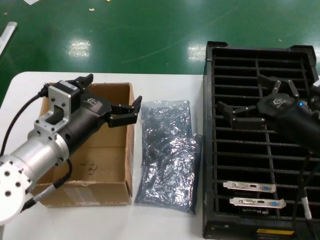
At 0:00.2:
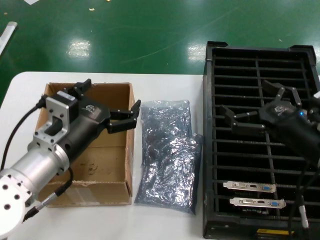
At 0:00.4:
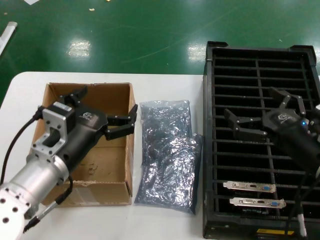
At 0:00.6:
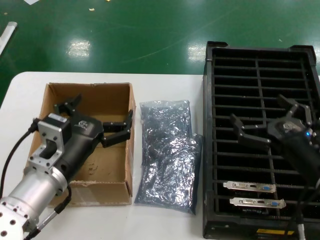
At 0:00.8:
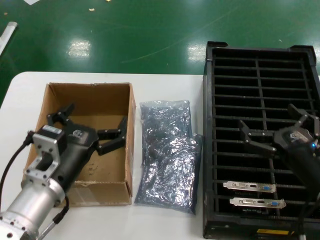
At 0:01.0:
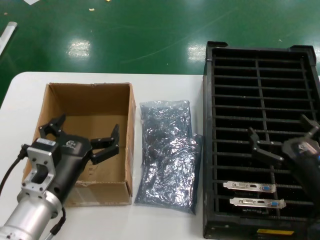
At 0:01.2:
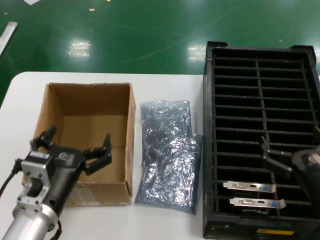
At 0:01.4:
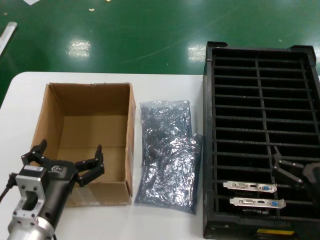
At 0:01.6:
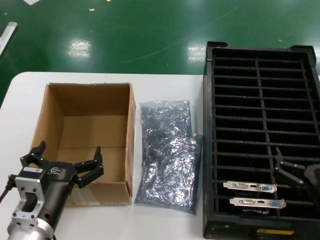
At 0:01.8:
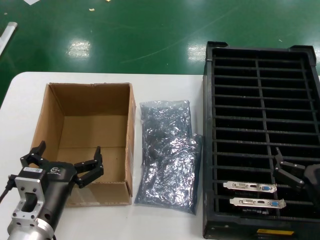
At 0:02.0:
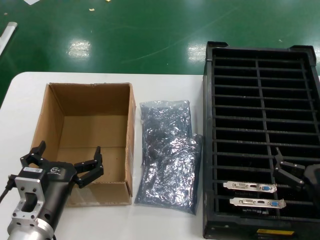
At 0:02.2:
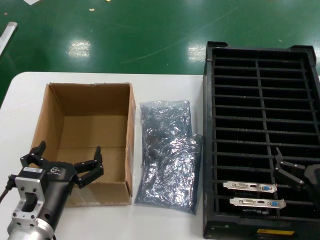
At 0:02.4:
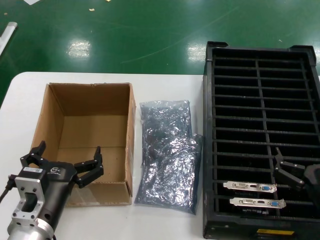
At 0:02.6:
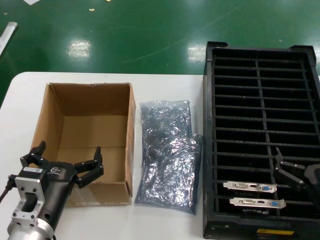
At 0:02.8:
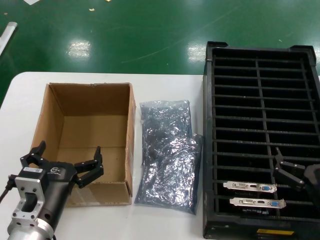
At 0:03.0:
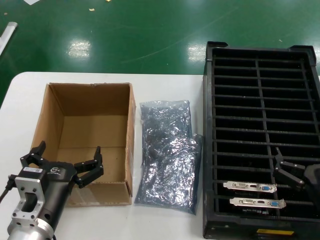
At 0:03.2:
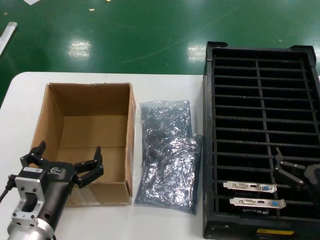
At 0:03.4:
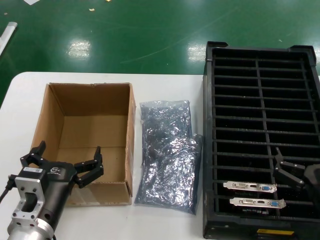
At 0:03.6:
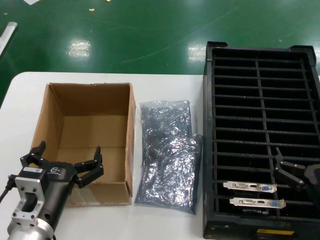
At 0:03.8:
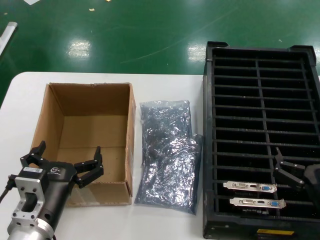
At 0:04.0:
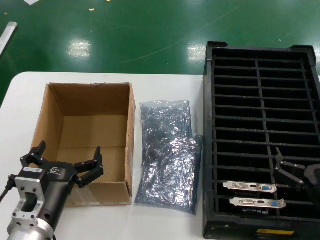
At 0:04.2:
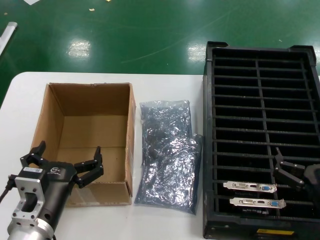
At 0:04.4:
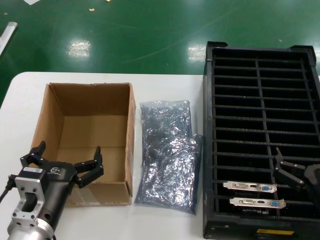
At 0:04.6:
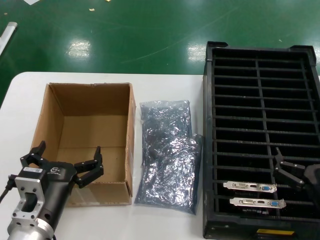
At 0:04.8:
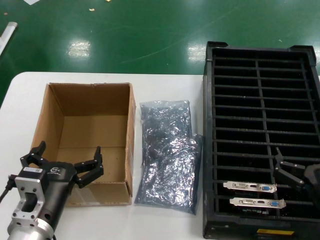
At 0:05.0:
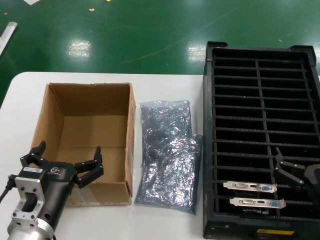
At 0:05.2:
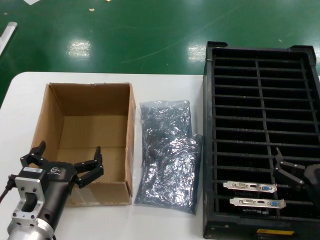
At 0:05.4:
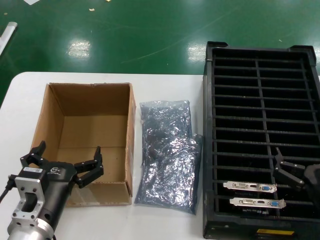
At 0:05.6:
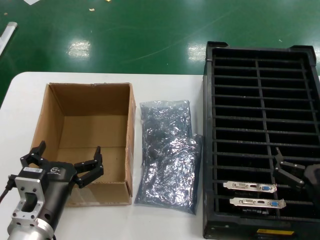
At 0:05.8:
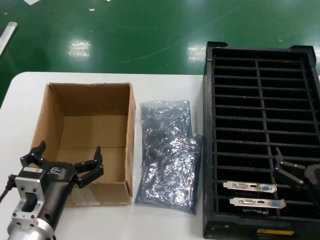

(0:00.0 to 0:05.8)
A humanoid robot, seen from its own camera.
Task of the whole recording: take out graphics card from box remove packaging put into black container.
0:00.0 - 0:01.4: The two hands go some 15 cm downward and backward.
0:01.4 - 0:05.8: Both hands stay put.
